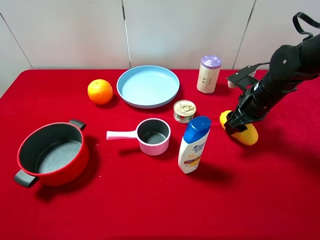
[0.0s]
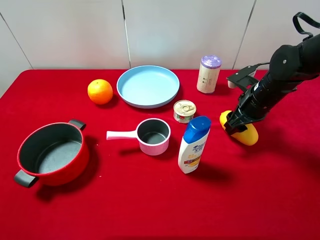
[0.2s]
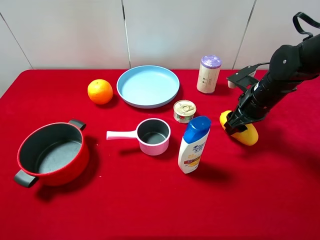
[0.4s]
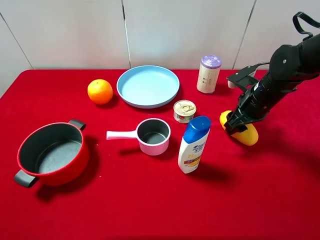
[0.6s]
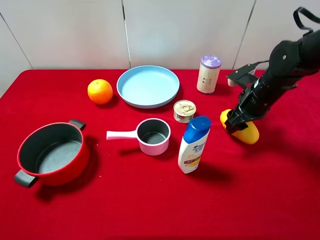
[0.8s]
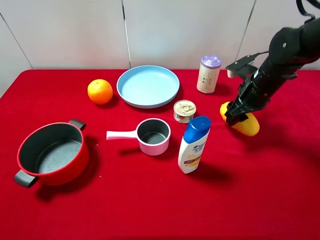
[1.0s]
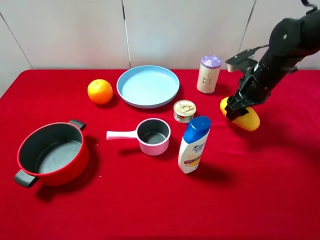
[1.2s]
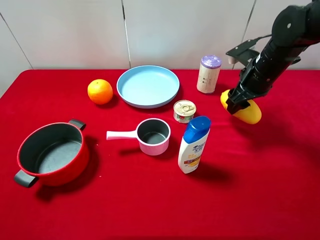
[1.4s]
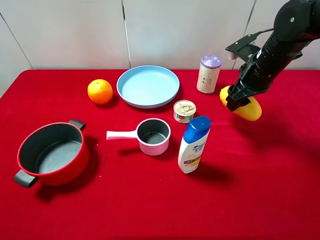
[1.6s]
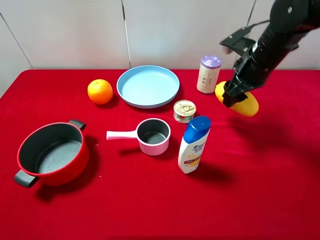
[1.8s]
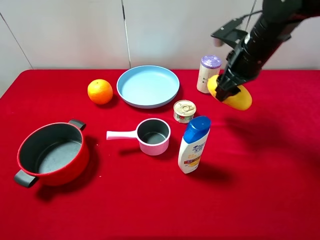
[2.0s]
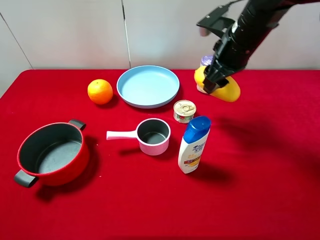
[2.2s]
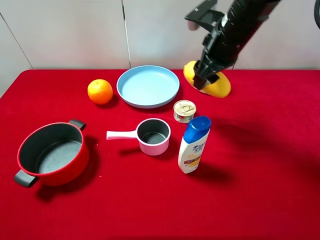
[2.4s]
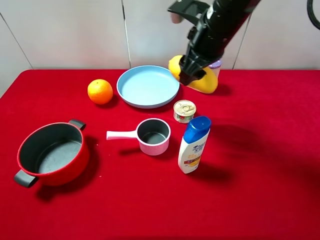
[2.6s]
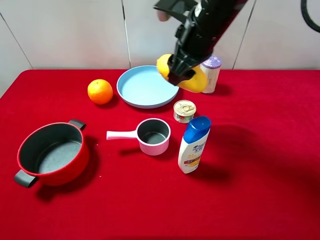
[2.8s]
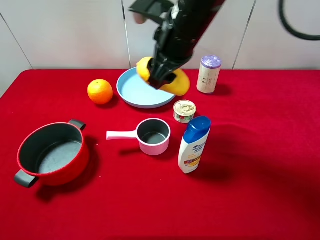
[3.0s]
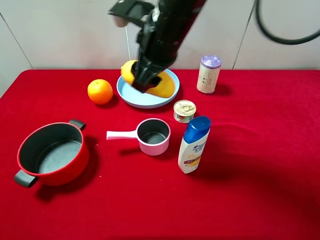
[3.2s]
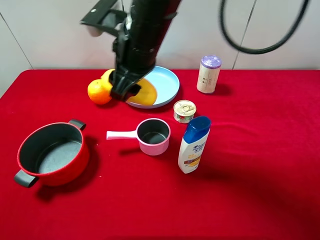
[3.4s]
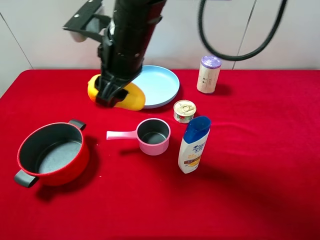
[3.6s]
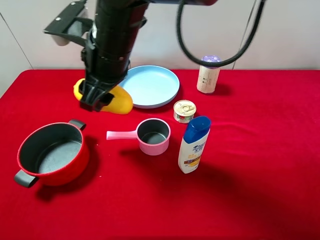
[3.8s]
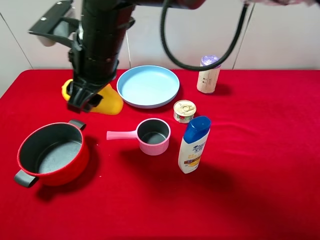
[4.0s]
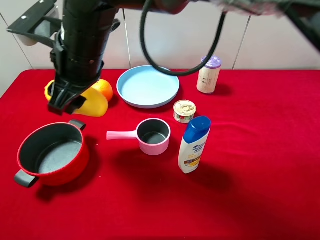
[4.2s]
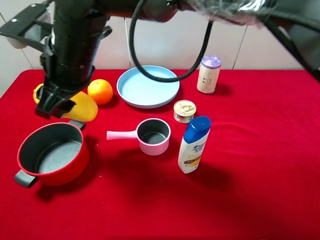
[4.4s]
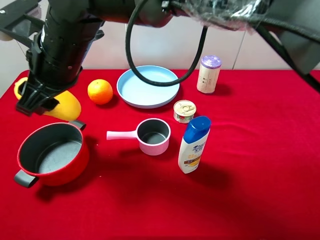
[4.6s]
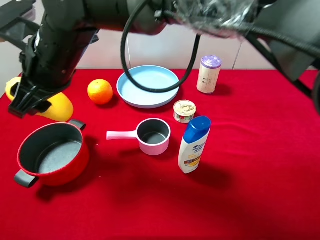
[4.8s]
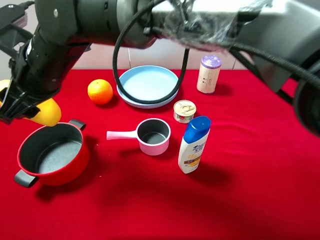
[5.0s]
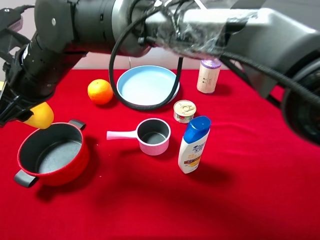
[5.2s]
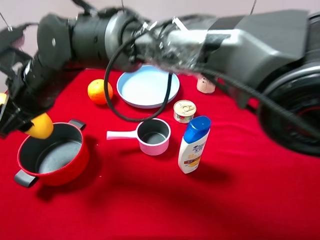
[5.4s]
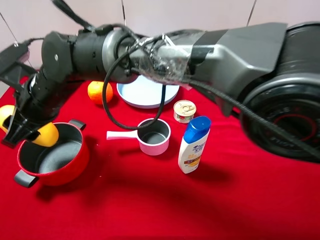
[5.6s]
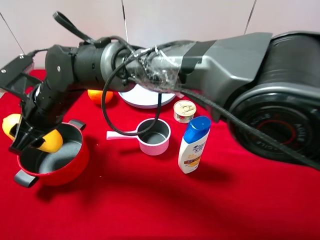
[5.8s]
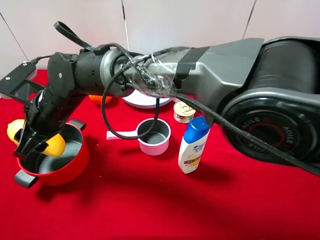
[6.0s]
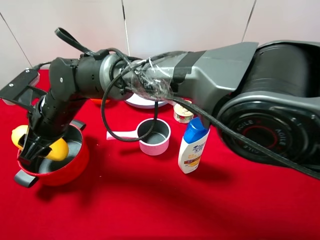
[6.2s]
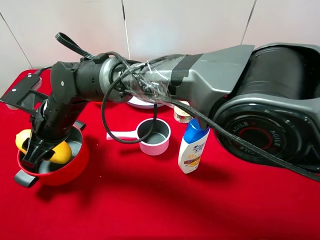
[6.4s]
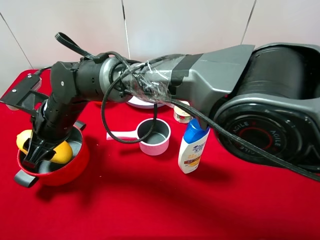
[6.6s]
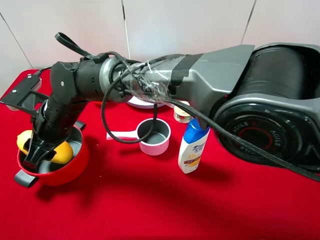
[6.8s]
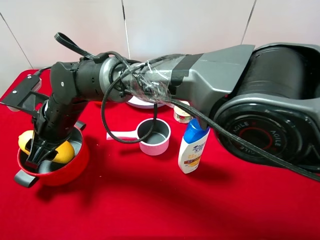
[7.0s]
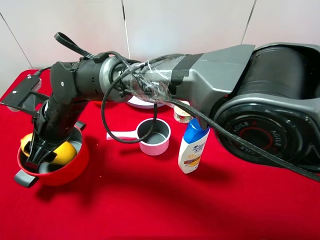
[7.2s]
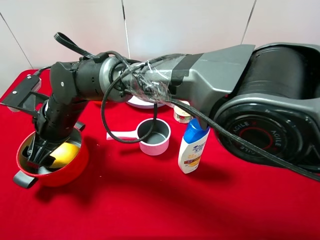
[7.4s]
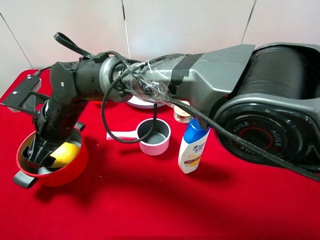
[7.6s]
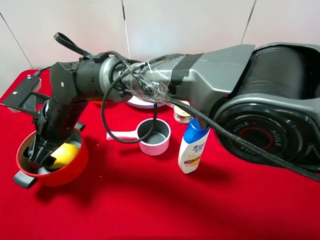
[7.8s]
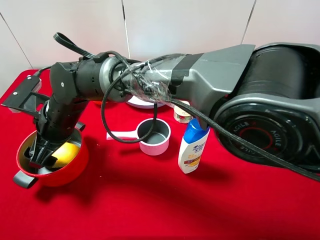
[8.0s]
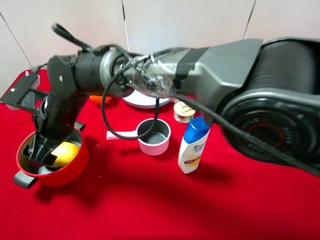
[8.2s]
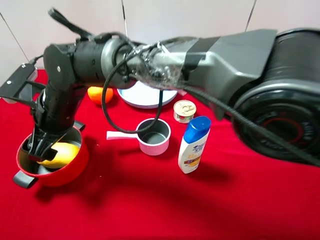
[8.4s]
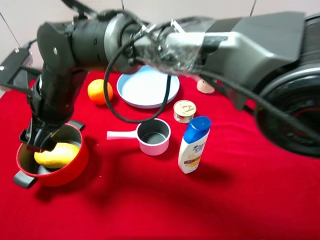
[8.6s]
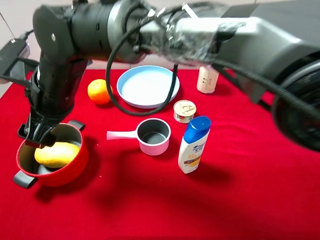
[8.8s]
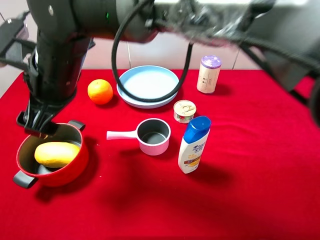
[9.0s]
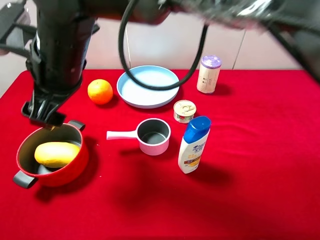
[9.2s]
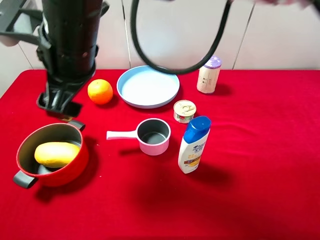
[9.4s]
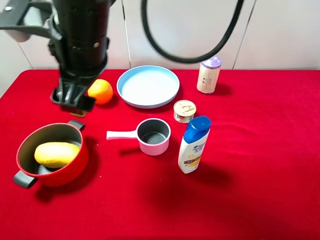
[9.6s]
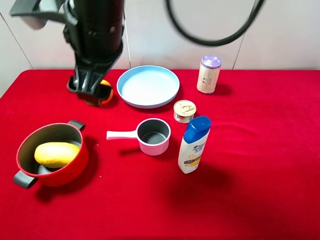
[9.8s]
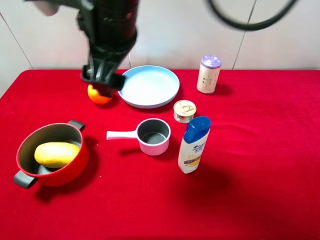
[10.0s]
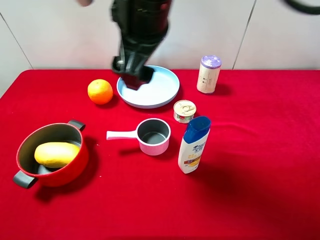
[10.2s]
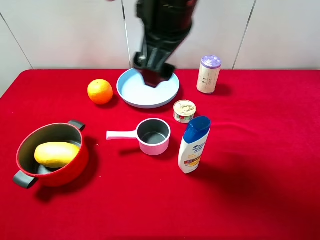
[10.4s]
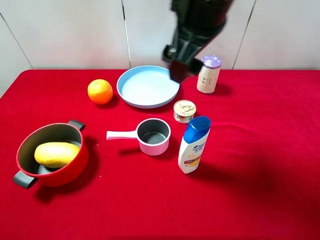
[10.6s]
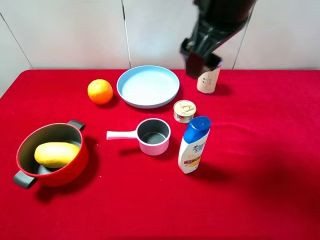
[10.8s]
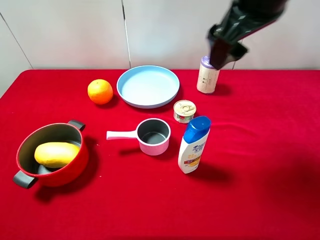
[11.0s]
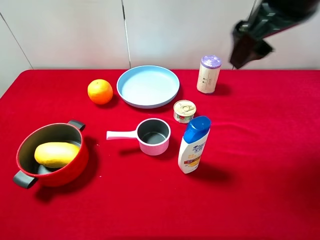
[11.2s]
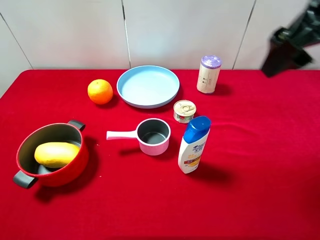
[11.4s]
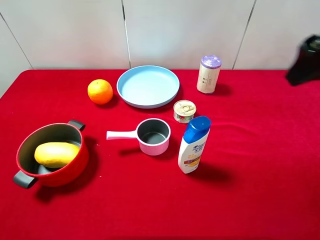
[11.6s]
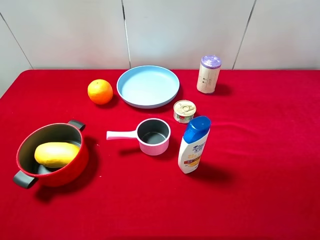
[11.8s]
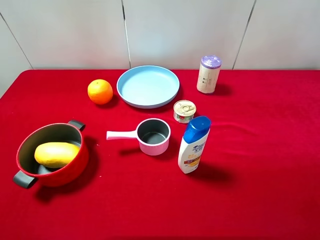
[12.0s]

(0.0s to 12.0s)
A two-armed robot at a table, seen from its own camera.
Task of the whole recording: pick up an item with a gripper and place it in a random container on the desktop.
0.0s - 1.6s: The right gripper is displaced upward by approximately 5 cm.
1.6s - 3.0s: The right gripper heads to the left and upward, covering about 20 cm.
3.0s - 4.4s: The right gripper moves to the left, about 15 cm.
4.4s - 6.0s: The right gripper travels downward and to the left by approximately 10 cm.
6.0s - 7.6s: The right gripper opens its fingers.
7.6s - 9.0s: The right gripper goes approximately 10 cm upward.
9.0s - 10.4s: The right gripper travels to the right and upward by about 20 cm.
10.4s - 12.0s: The right gripper is displaced to the right by about 30 cm.

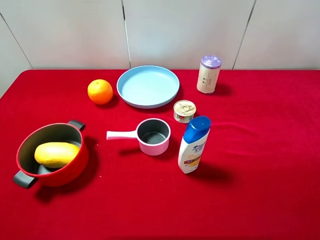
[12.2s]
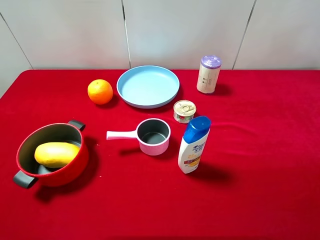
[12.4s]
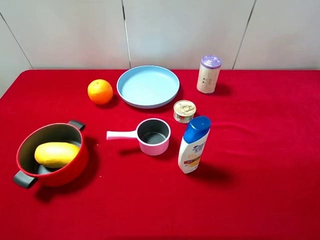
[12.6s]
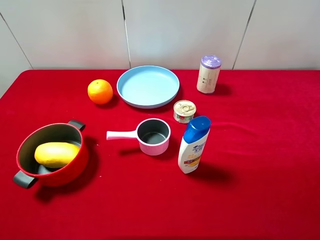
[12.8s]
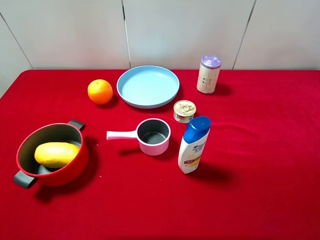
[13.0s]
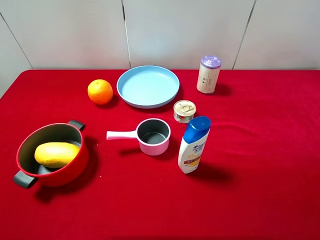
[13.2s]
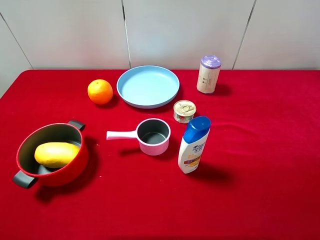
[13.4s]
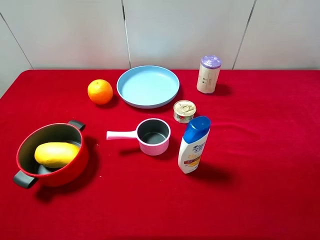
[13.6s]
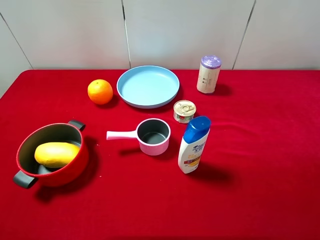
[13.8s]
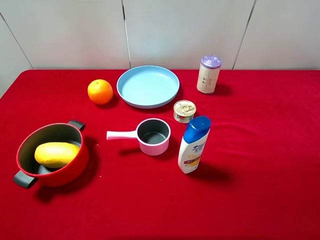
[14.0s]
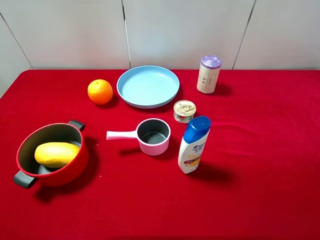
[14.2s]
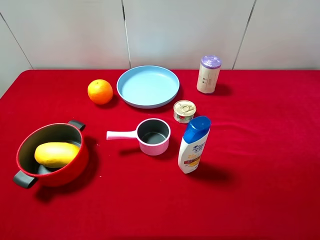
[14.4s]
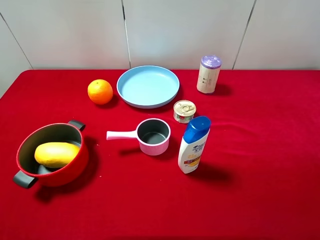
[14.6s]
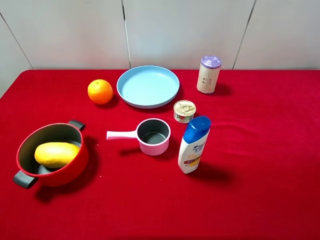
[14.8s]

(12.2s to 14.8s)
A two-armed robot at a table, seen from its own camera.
Task of the whole recording: pick up an item with a gripper and place it in a random container on the desktop.
13.4s - 14.8s: Both grippers stay about where they are.

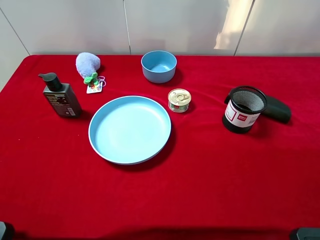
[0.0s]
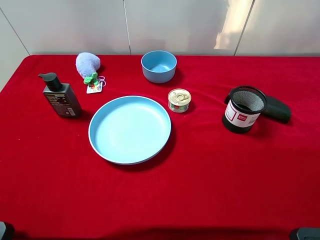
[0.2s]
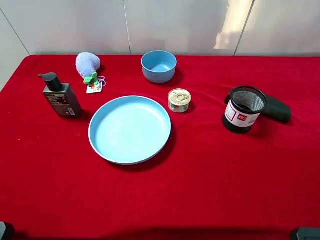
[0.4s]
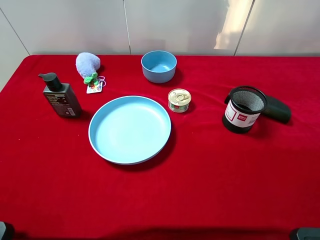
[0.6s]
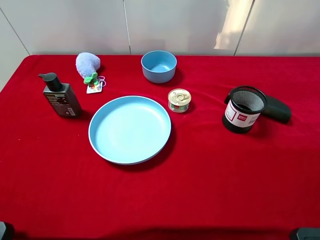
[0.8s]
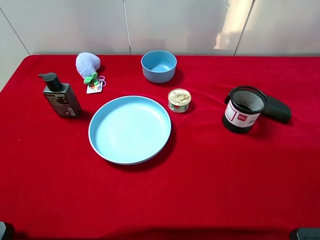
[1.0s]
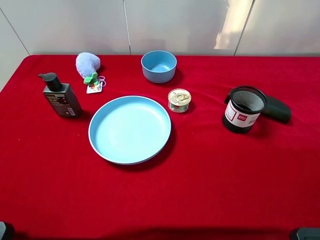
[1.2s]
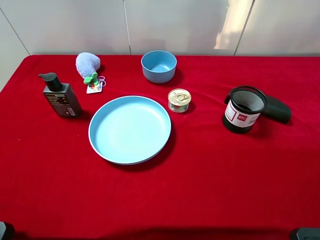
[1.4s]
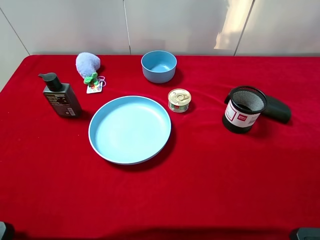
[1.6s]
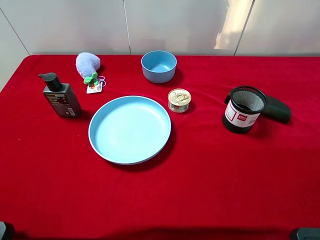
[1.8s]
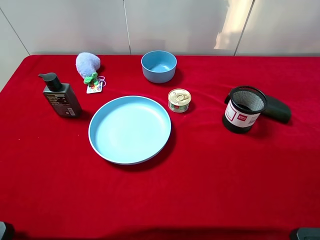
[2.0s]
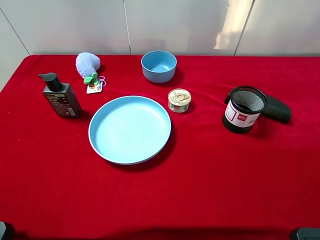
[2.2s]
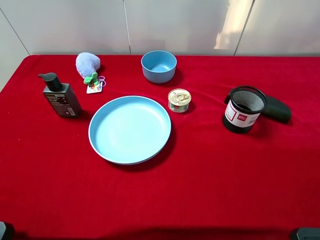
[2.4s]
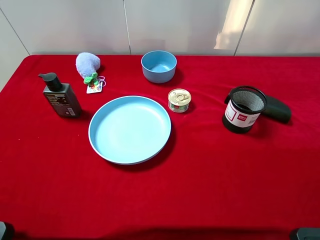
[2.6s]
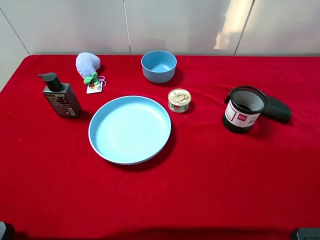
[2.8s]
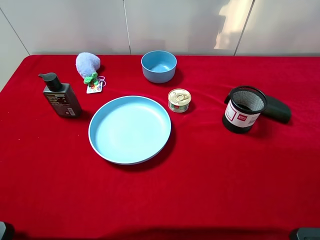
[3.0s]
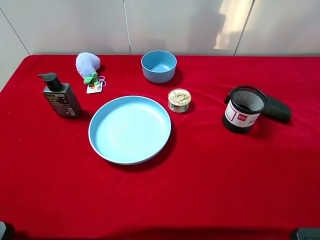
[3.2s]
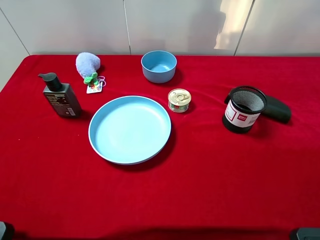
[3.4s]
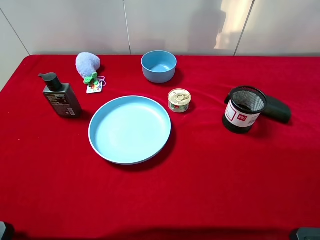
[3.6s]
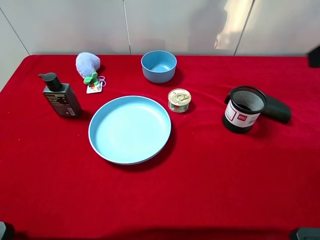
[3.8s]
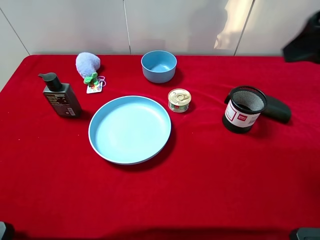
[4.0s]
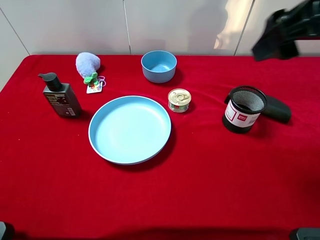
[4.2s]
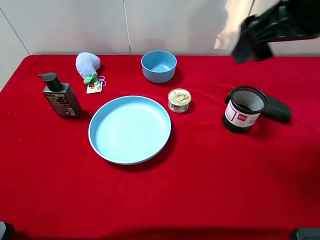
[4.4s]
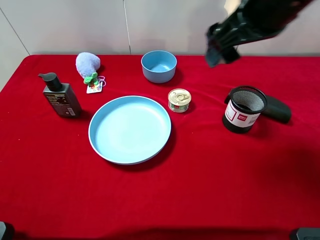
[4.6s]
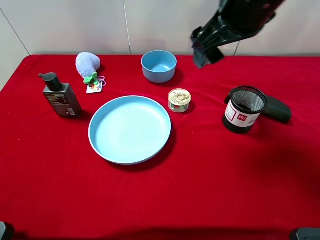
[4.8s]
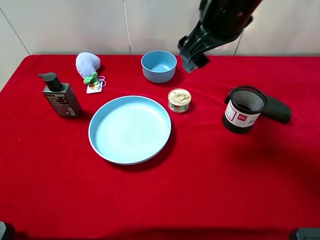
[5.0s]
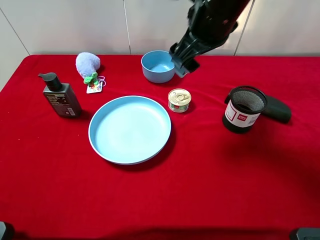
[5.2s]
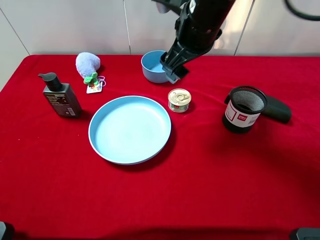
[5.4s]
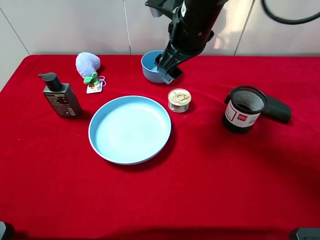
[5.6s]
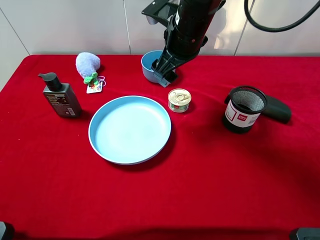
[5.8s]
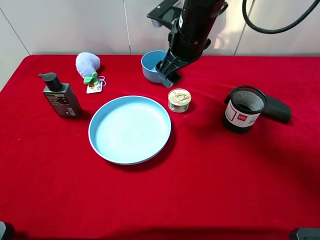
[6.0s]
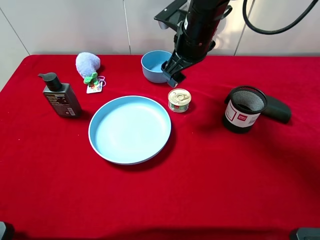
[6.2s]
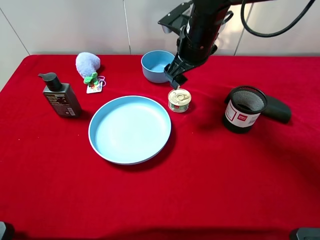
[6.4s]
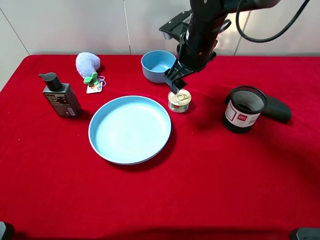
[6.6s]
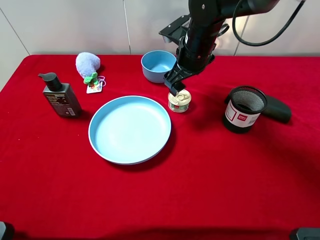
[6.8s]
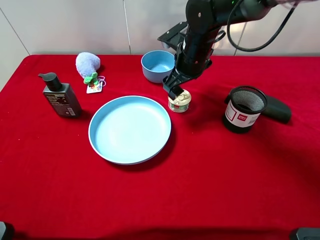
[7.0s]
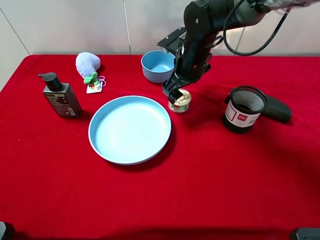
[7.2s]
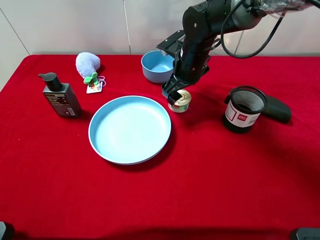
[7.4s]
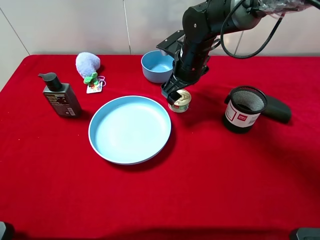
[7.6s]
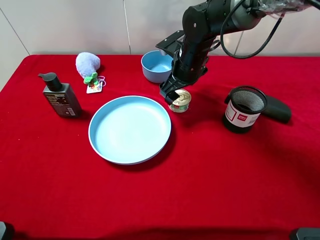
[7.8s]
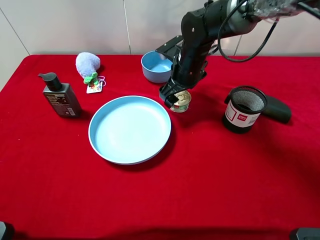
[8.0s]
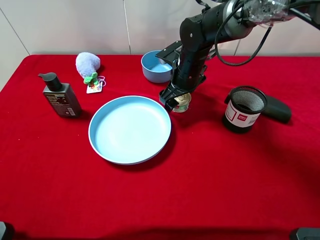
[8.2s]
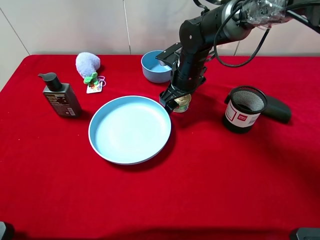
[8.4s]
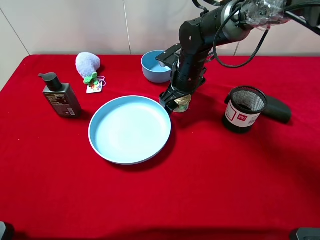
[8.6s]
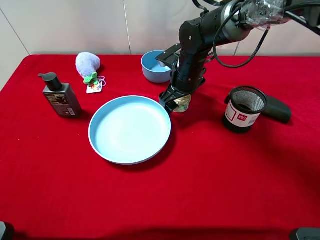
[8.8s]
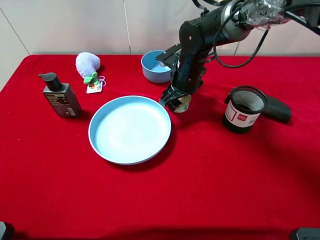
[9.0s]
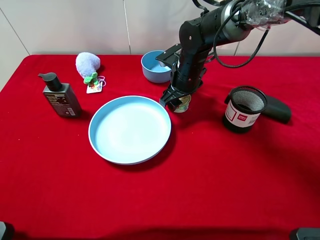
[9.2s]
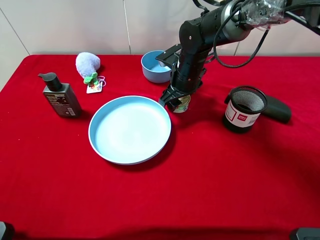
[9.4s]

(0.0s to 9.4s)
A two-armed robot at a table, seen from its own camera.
Task of the whole recording: pick up an item with a gripper and place it in a random container on the desktop.
0.0s - 1.6s: Both grippers stay put.
3.2s - 4.8s: The right gripper shifts approximately 25 cm to the left and forward.
4.8s - 6.2s: The right gripper moves downward and forward, about 15 cm.
6.2s - 7.8s: The right gripper travels downward by roughly 5 cm.
7.8s - 9.4s: The right gripper closes.
